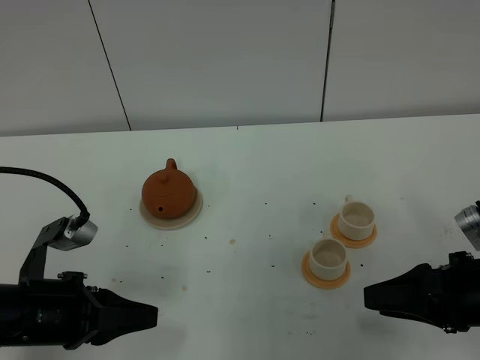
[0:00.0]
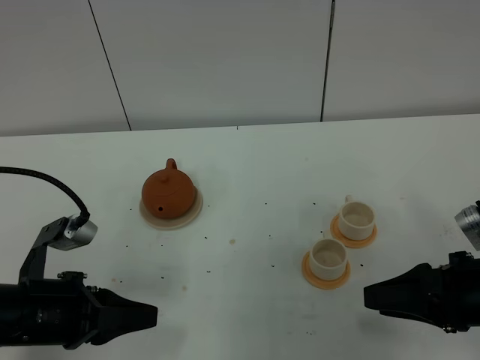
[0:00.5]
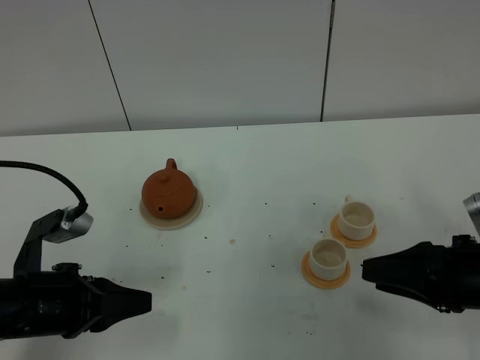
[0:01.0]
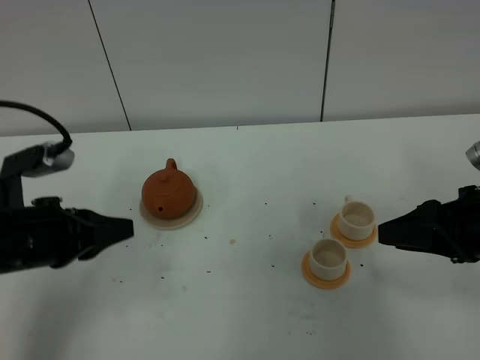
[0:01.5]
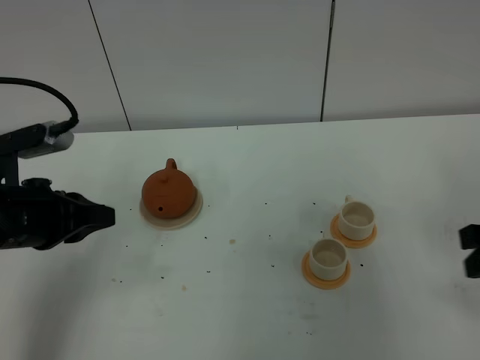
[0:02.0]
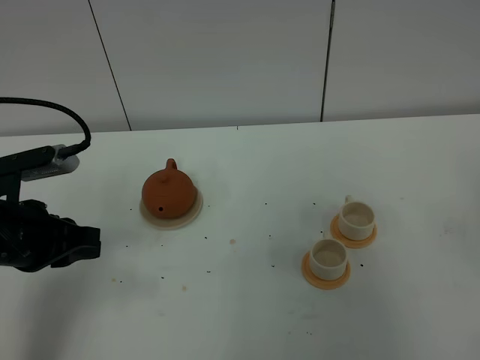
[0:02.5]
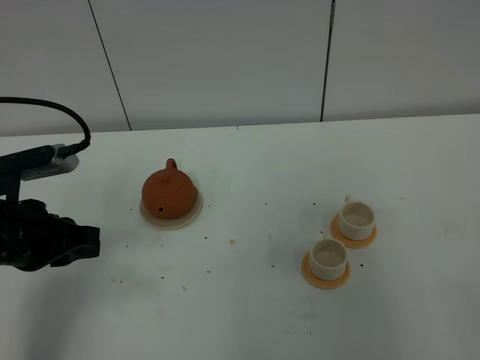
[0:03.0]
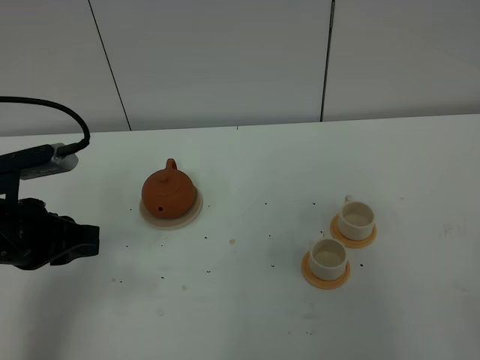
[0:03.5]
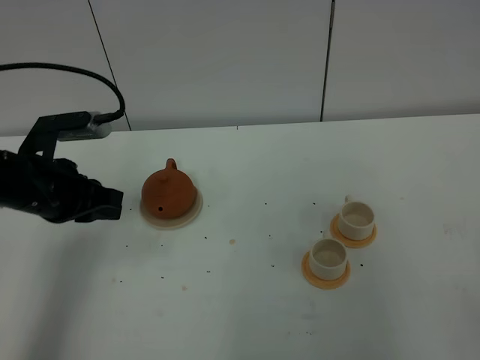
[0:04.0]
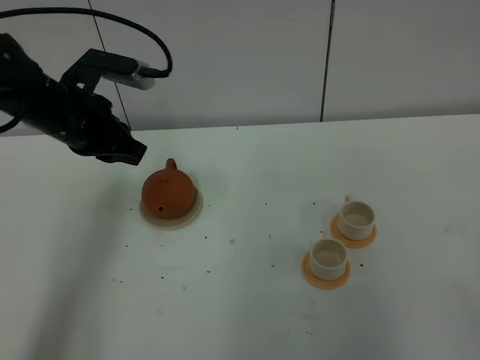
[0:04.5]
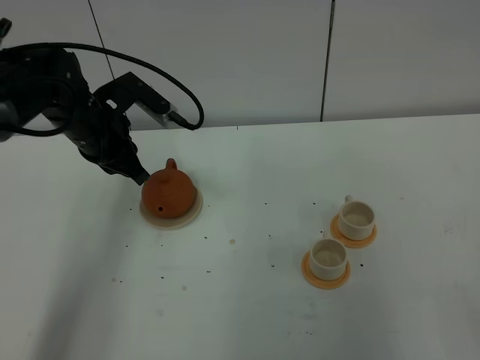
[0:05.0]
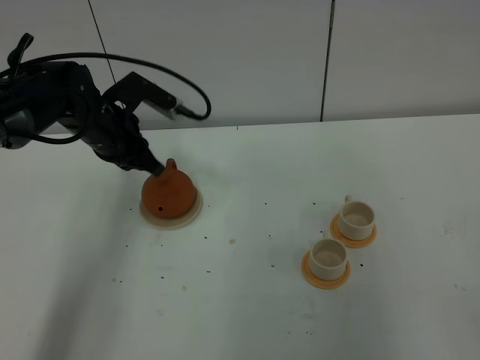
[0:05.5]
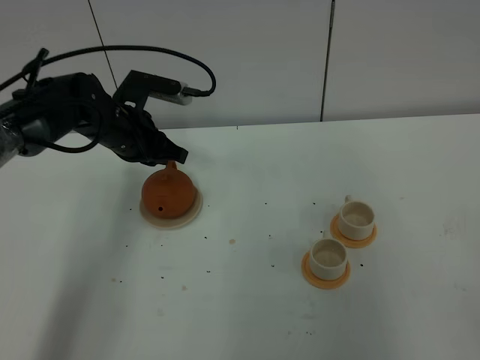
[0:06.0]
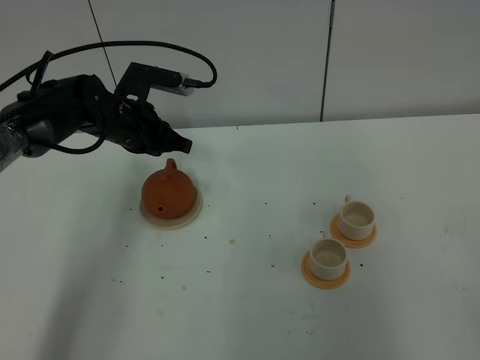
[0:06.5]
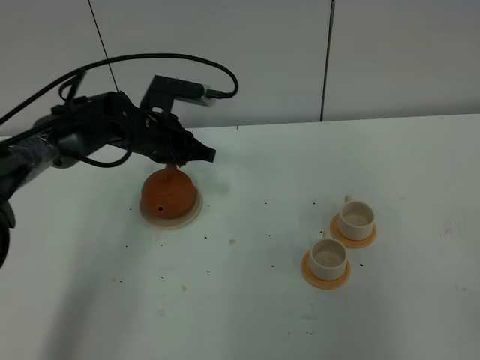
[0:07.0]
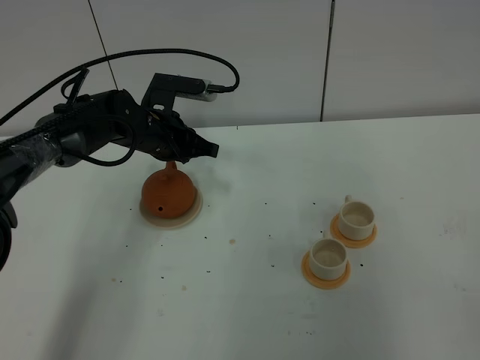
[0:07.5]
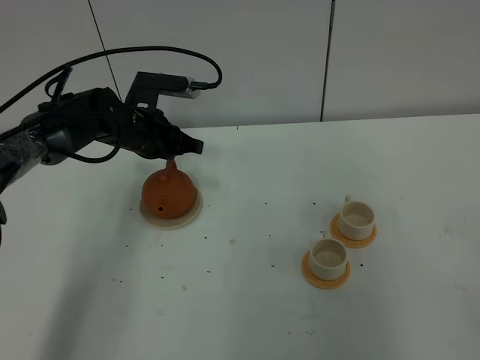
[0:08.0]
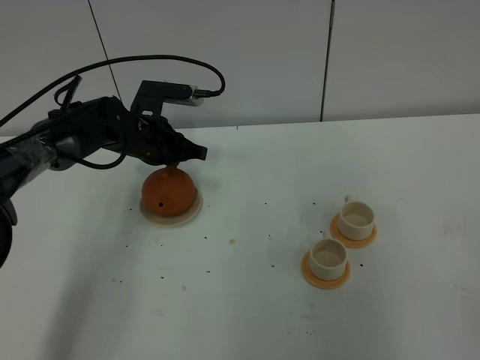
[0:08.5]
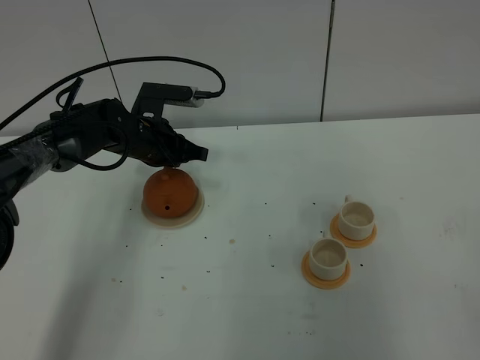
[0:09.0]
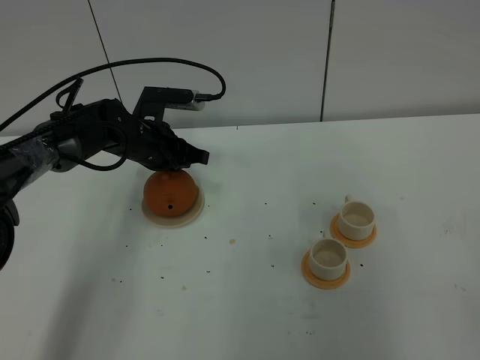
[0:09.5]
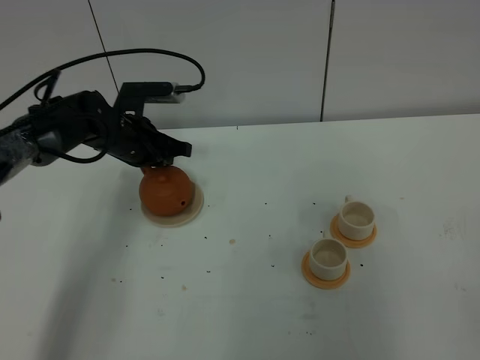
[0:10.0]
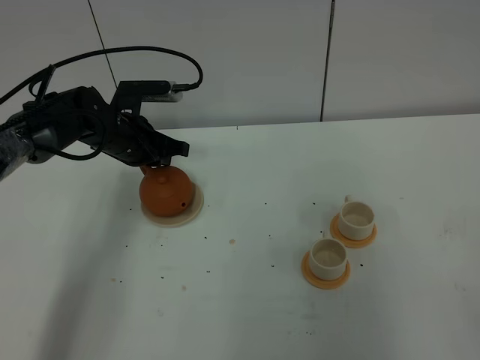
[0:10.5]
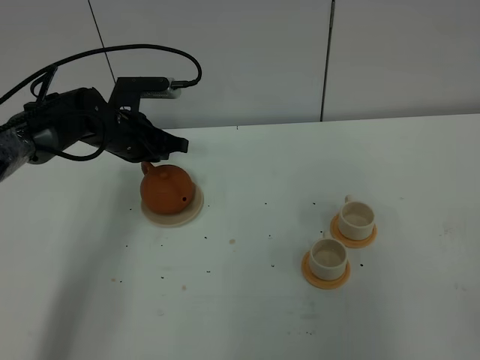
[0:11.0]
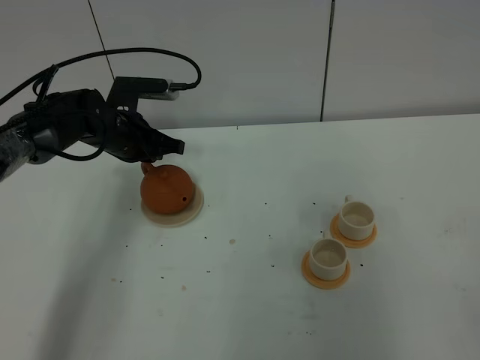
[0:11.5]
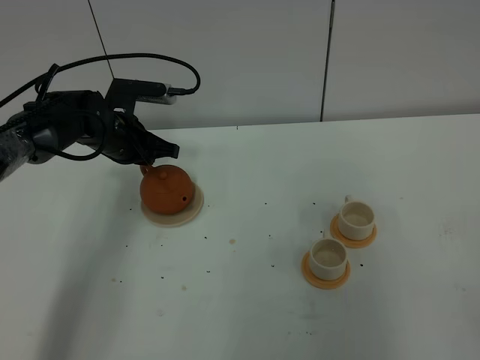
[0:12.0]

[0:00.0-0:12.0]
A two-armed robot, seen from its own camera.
Task of the whole recording: grasp the brown teapot and pour the tea into the two white teacups one by one, put the brown teapot back in its original place.
0:00.0 to 0:02.0: The left gripper moves forward and upward, about 10 cm, while the right gripper shifts roughly 5 cm upward.
0:02.0 to 0:04.0: The left gripper is displaced forward by about 5 cm.
0:04.0 to 0:06.0: The left gripper is displaced forward and to the right by some 15 cm.
0:06.0 to 0:12.0: The grippers make only small movements.

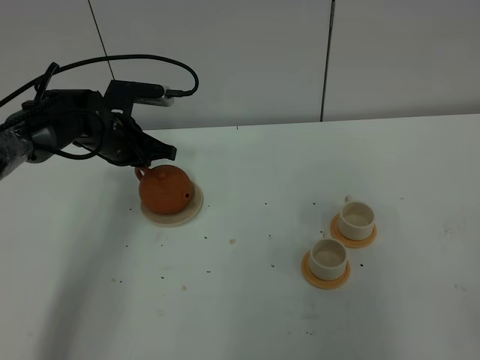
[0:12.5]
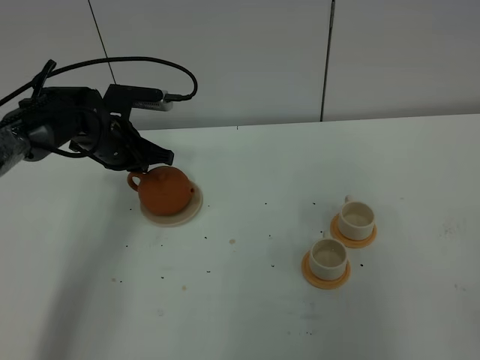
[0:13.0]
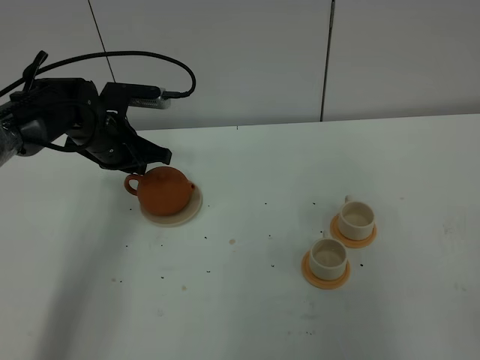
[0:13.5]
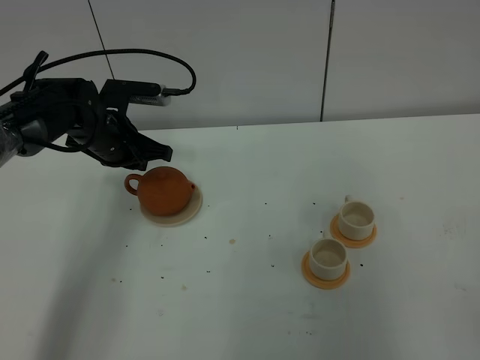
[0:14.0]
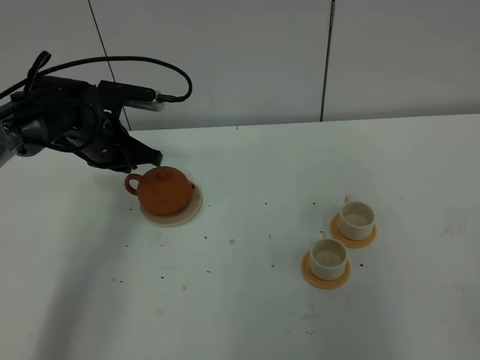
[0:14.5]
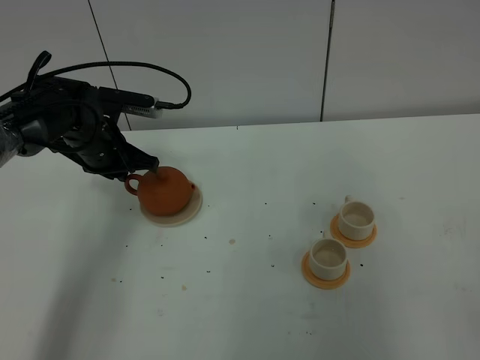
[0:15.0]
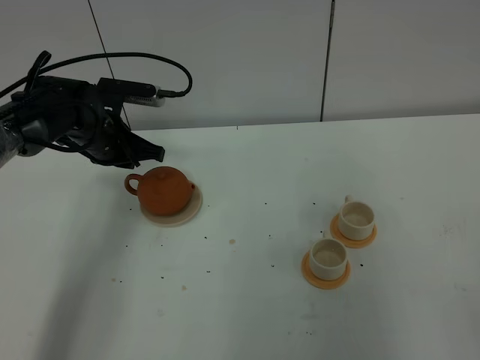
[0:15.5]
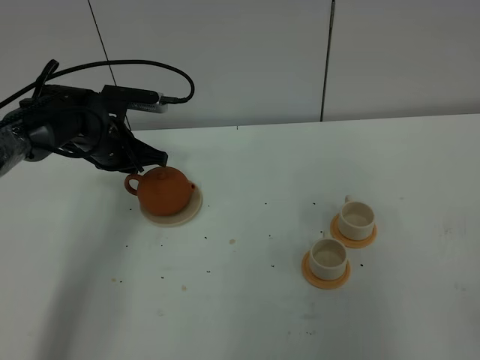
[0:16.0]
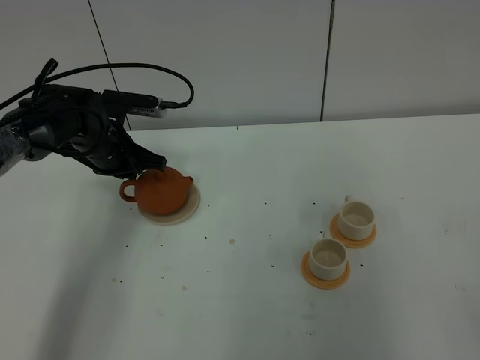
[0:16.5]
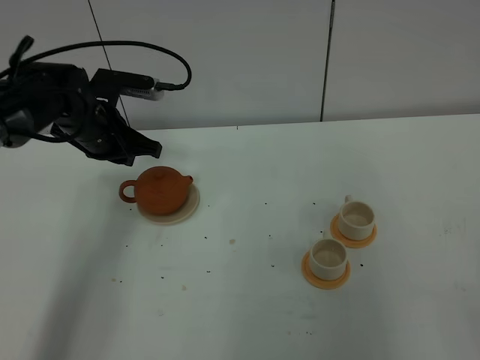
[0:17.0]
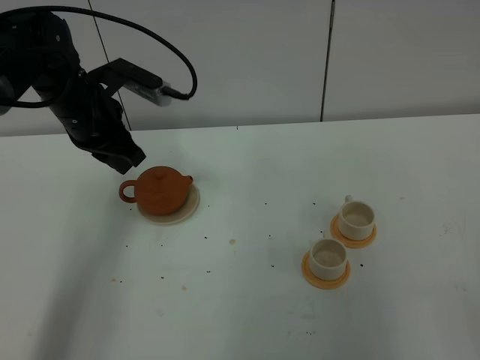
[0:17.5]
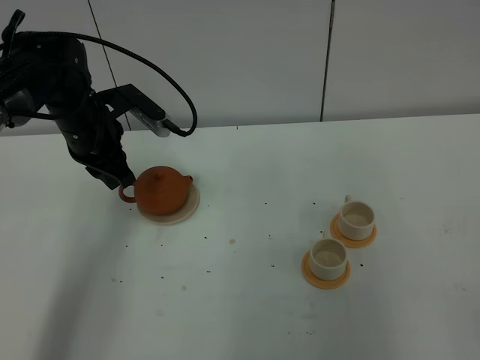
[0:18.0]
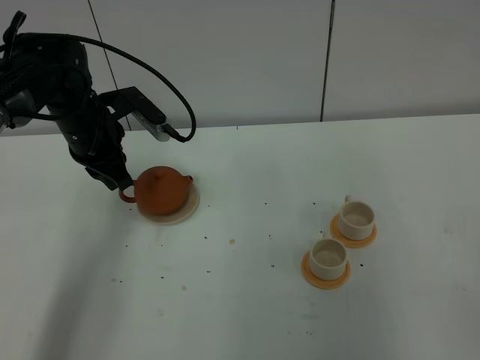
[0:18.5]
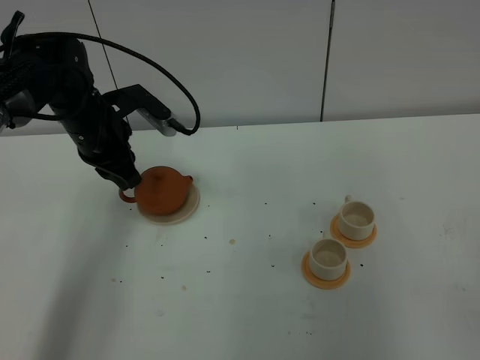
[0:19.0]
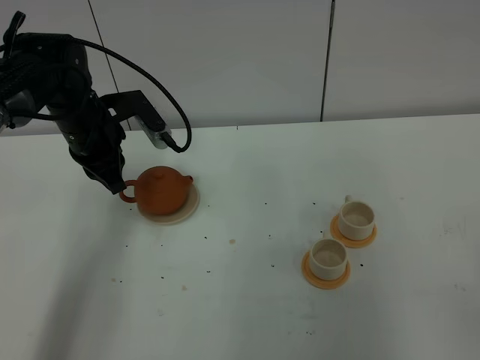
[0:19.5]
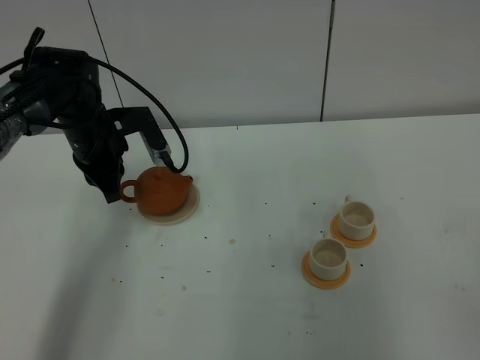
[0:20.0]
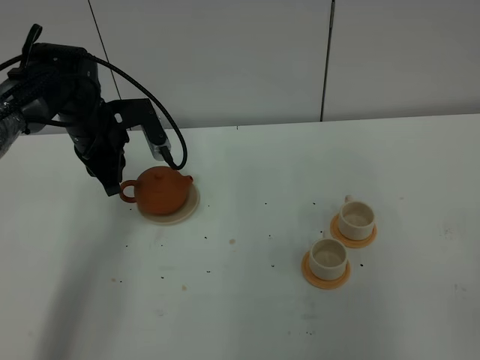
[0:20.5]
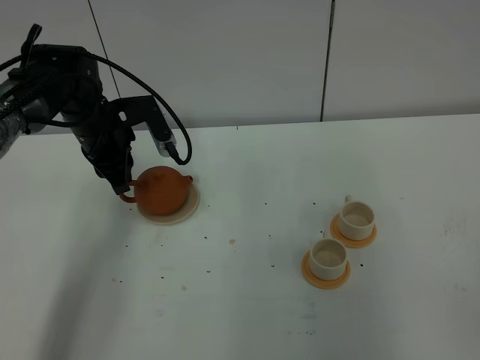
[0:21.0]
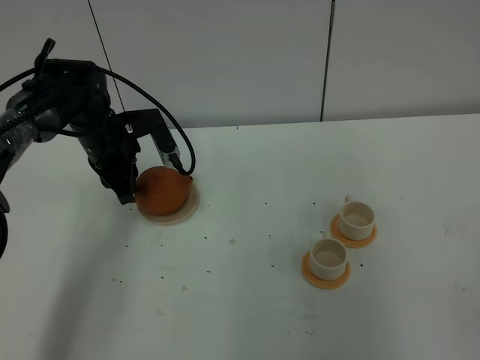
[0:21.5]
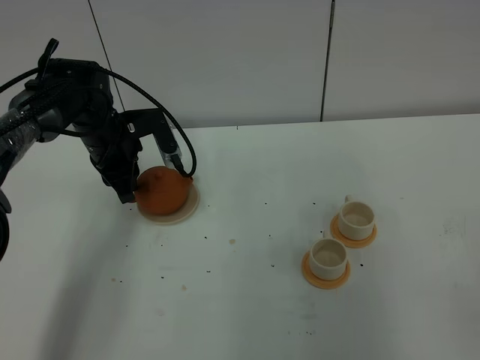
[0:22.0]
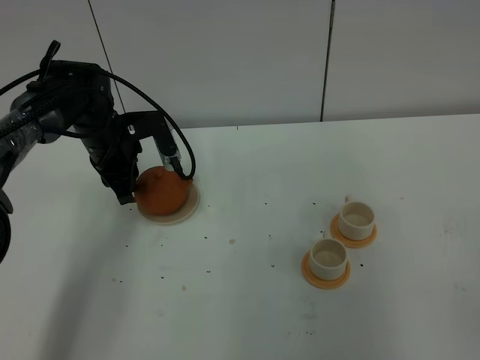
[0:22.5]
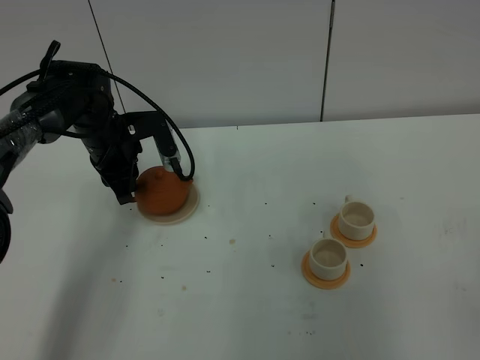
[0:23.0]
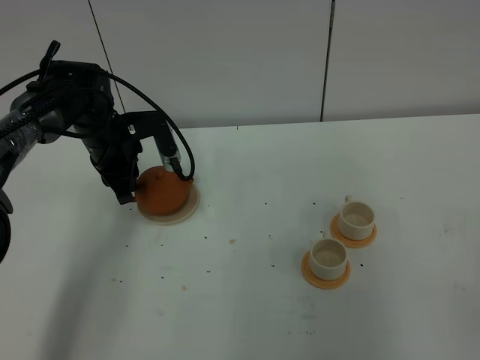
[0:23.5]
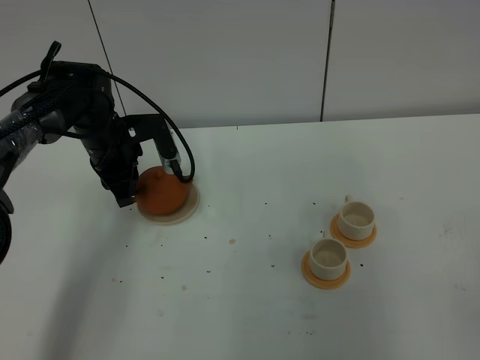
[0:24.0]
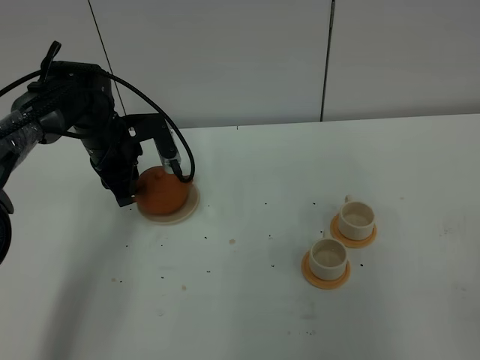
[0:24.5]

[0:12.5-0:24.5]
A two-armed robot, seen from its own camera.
Task of the whole recording: grasp the brown teapot and pour the tea into the two white teacups one by one, put the brown teapot back in its original place.
0:12.5 to 0:16.5: The grippers make only small movements.
0:16.5 to 0:18.5: The left gripper travels upward by about 5 cm.
0:18.5 to 0:20.5: There are only small adjustments of the grippers.
0:20.5 to 0:22.5: The left gripper opens.
0:22.5 to 0:24.5: Neither gripper changes place.

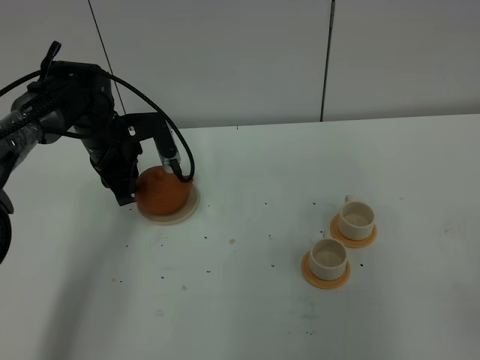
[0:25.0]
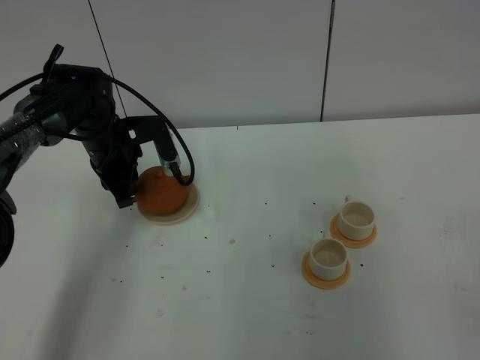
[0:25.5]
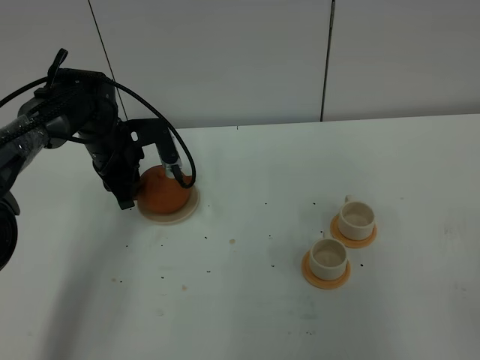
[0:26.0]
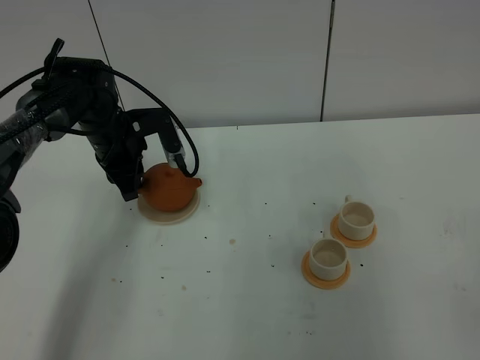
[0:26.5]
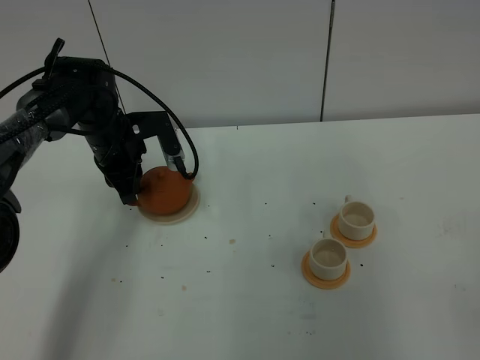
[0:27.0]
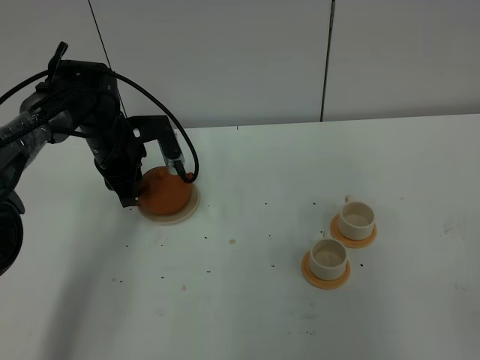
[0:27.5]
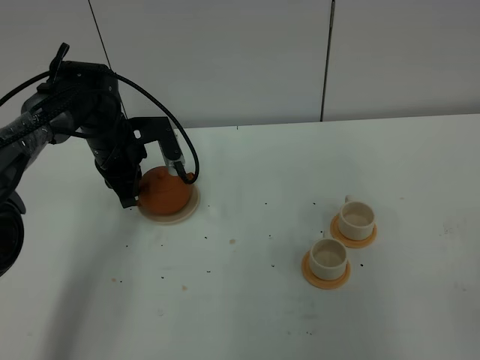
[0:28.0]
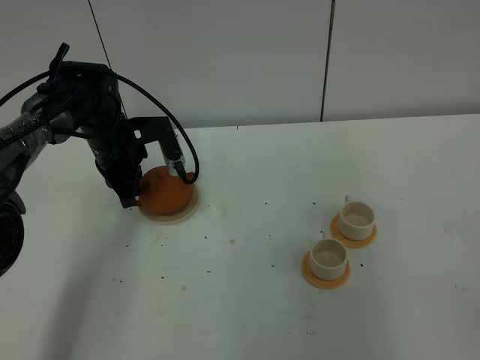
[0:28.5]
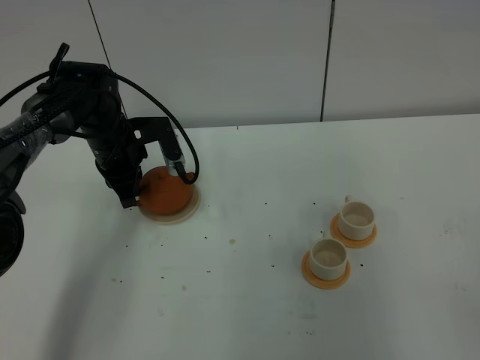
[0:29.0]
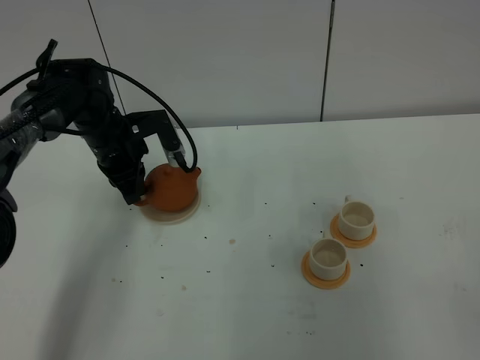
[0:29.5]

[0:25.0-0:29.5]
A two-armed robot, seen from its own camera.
Task of the whole recording: grasp the brown teapot and pour the tea into the two white teacups one by one, put the brown teapot back in its original place.
0:25.0 to 0:27.0: The two grippers keep their place.
0:27.0 to 0:29.5: The left gripper closes its fingers.
